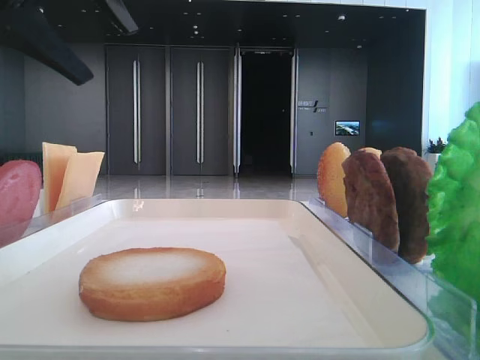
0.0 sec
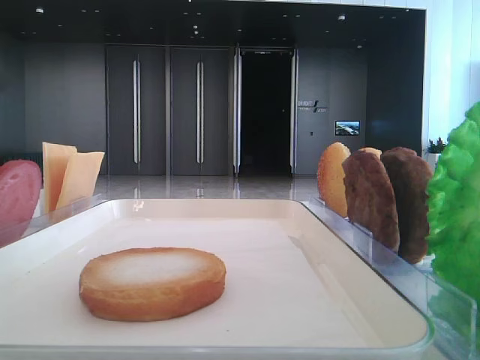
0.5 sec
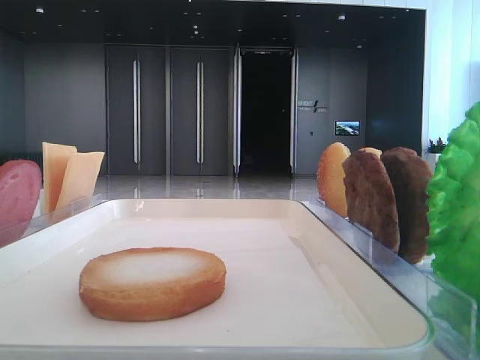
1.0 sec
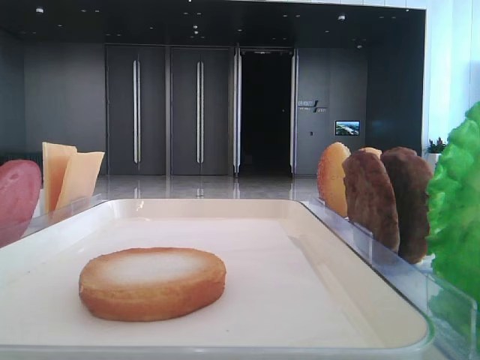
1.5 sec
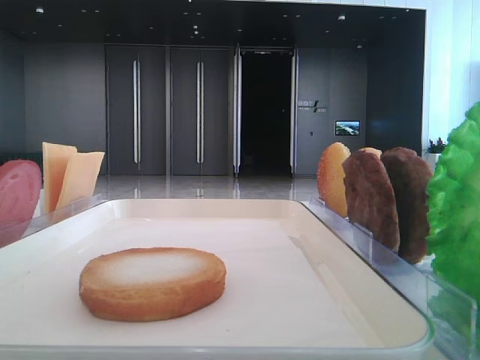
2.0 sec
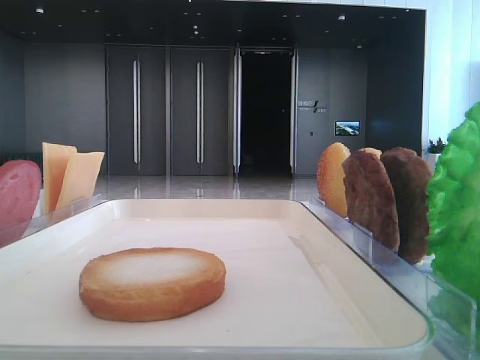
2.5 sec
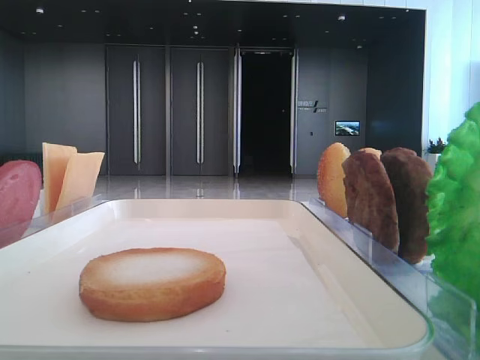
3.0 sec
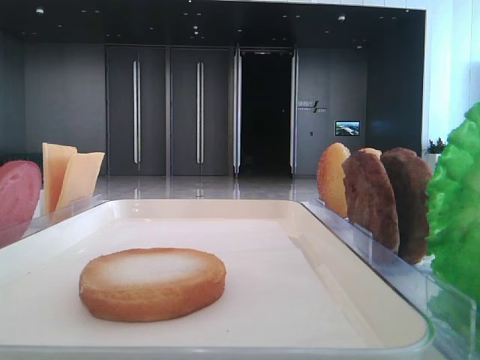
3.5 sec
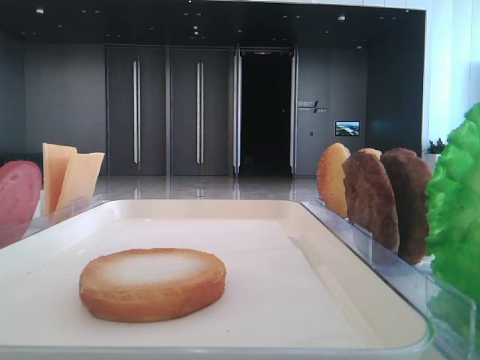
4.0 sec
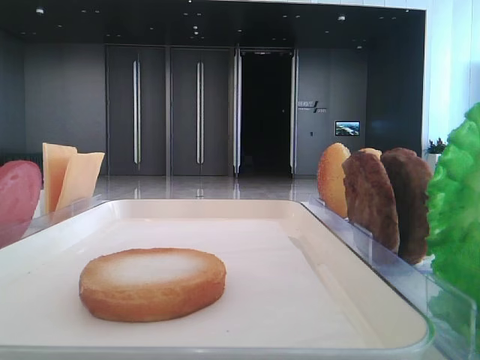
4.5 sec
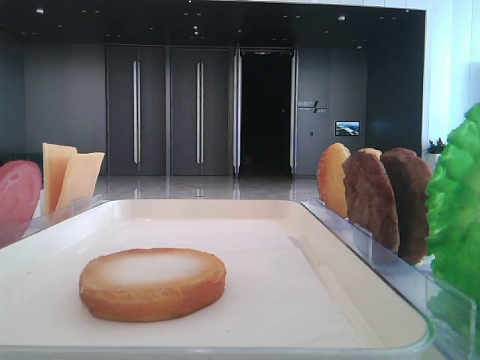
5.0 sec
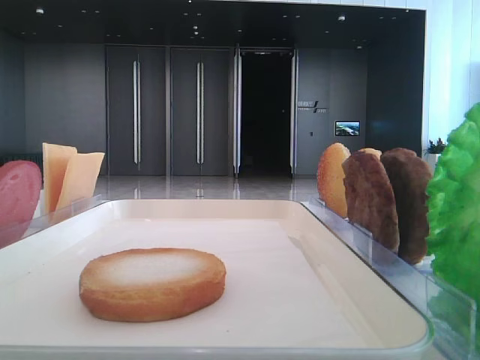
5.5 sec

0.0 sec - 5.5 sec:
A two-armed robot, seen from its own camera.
0.0 sec - 2.0 sec: The left gripper travels to the left by about 20 cm.

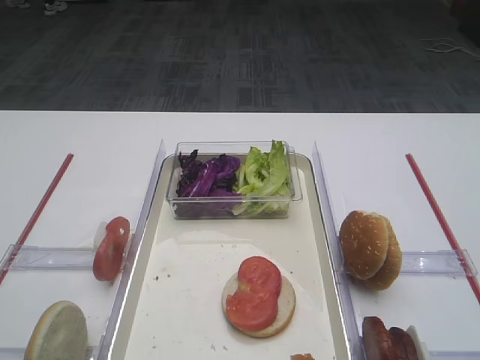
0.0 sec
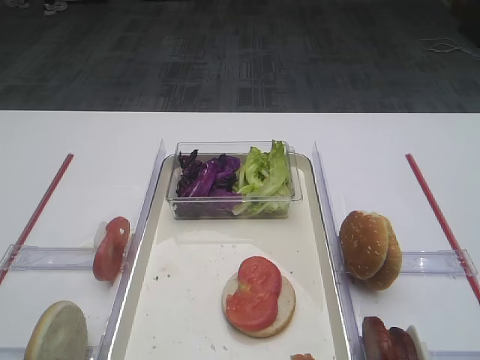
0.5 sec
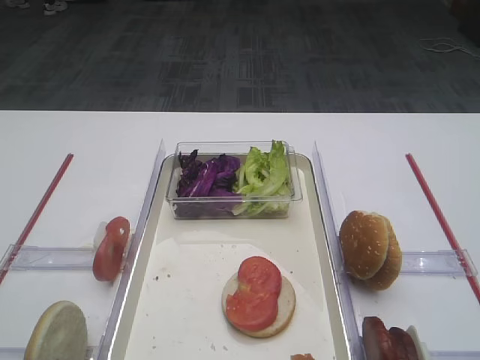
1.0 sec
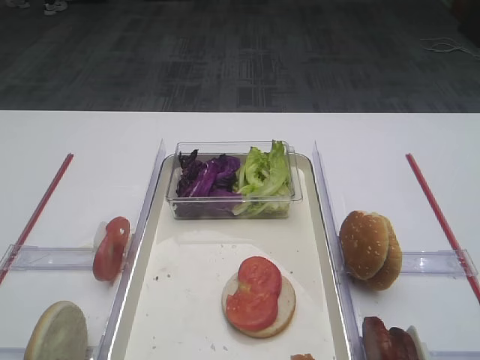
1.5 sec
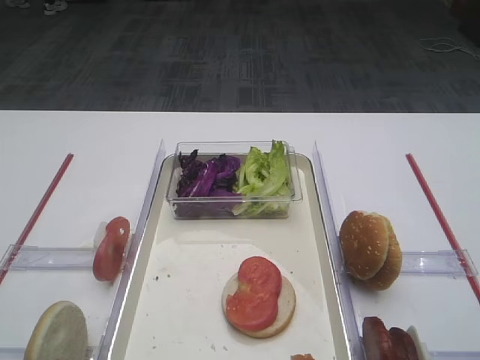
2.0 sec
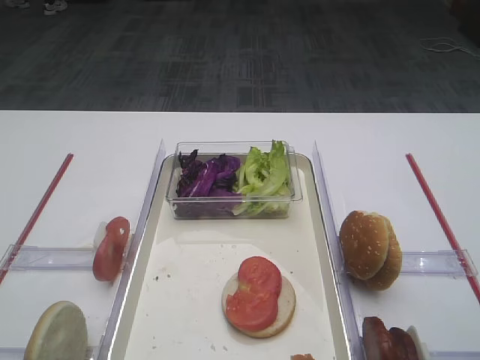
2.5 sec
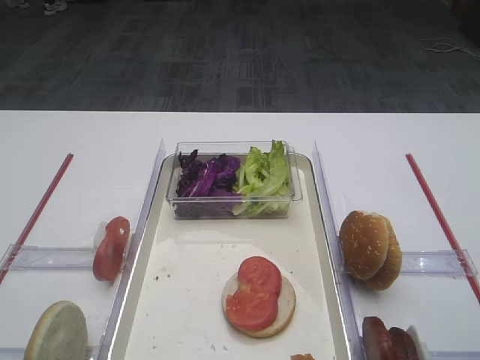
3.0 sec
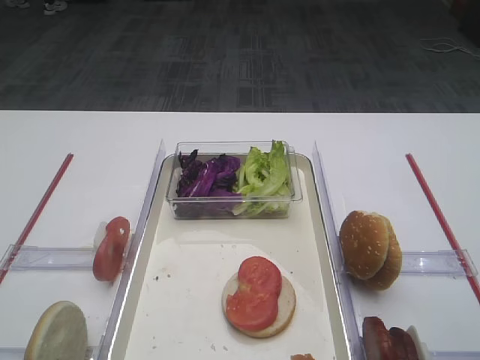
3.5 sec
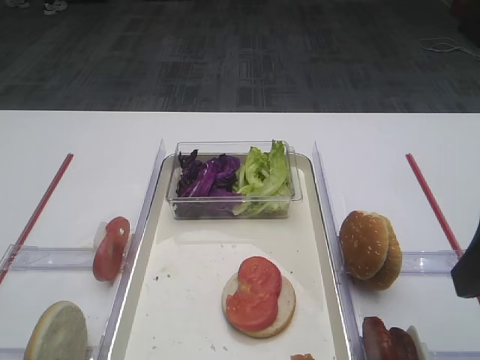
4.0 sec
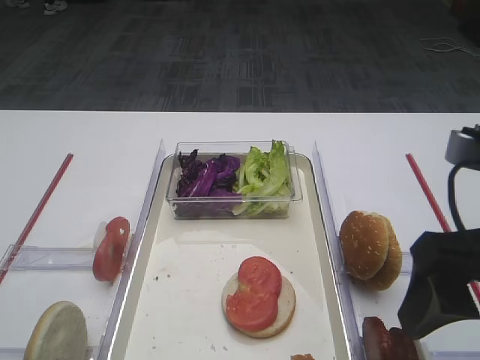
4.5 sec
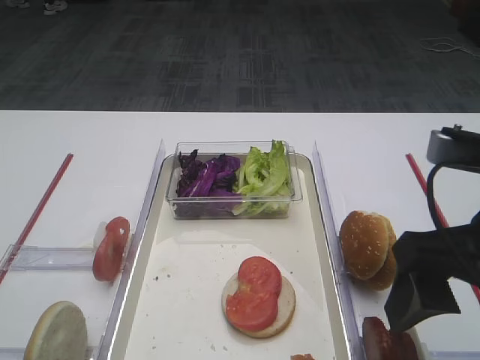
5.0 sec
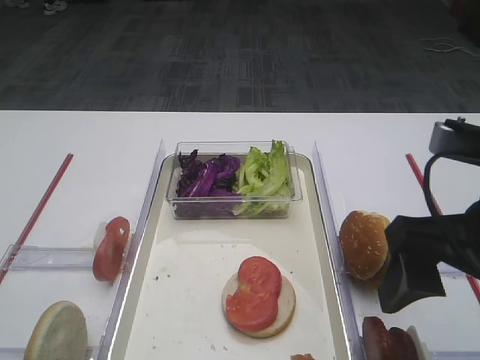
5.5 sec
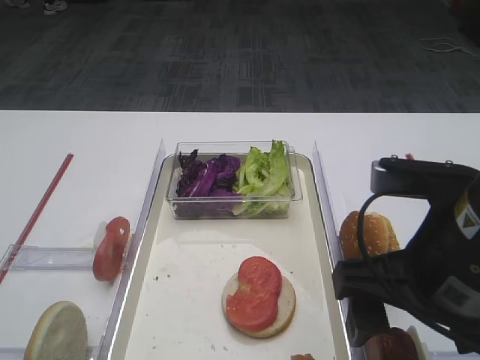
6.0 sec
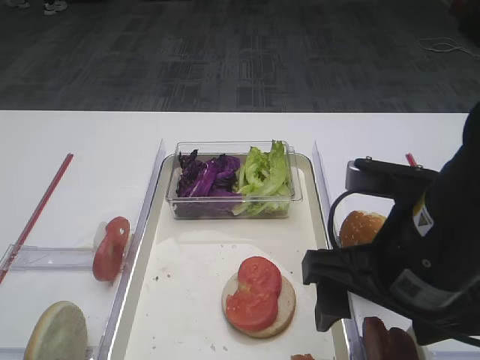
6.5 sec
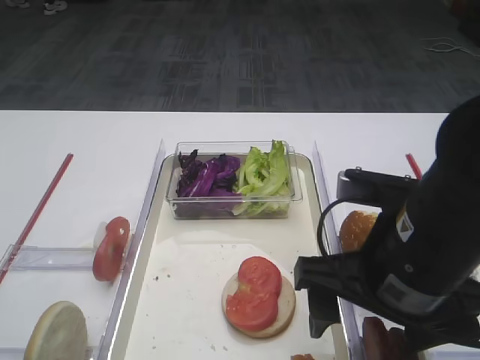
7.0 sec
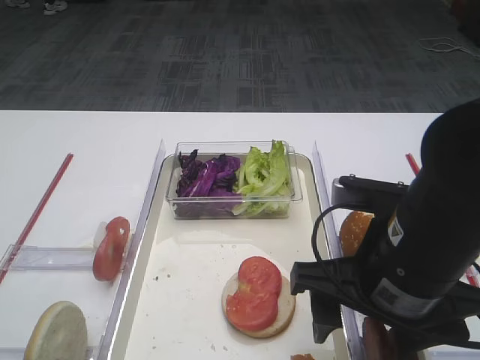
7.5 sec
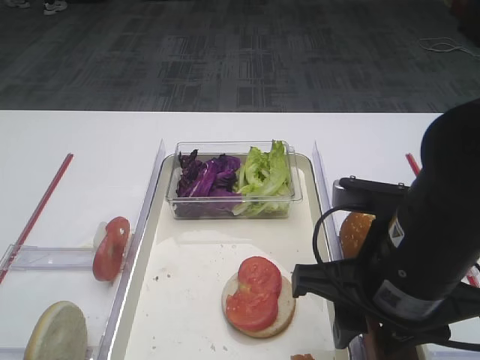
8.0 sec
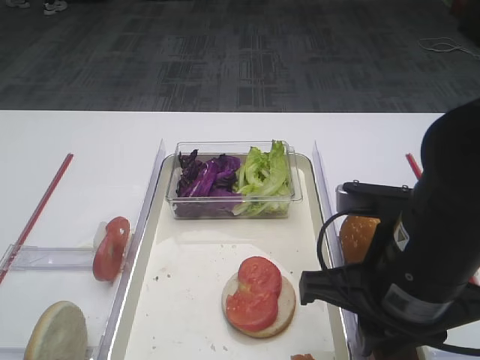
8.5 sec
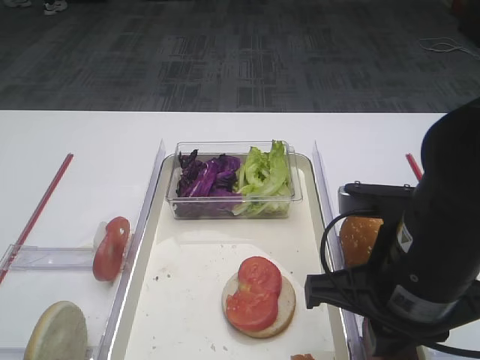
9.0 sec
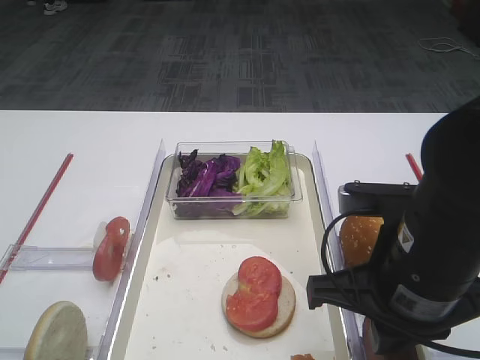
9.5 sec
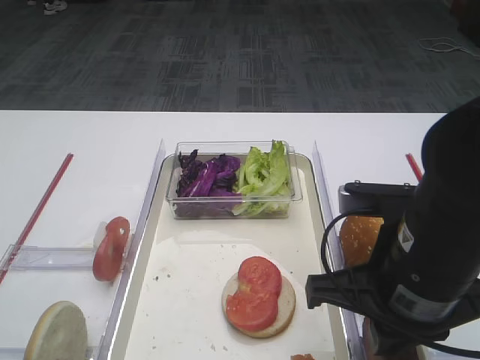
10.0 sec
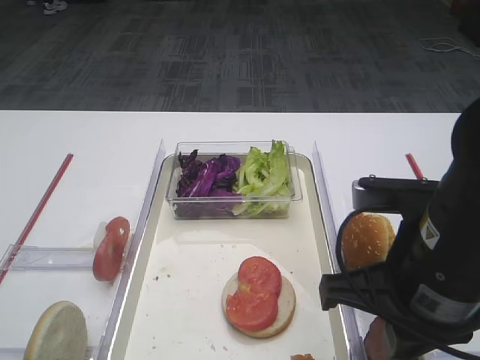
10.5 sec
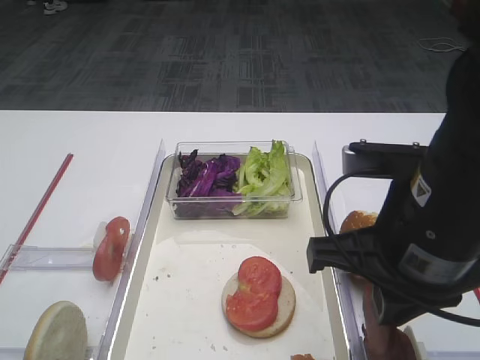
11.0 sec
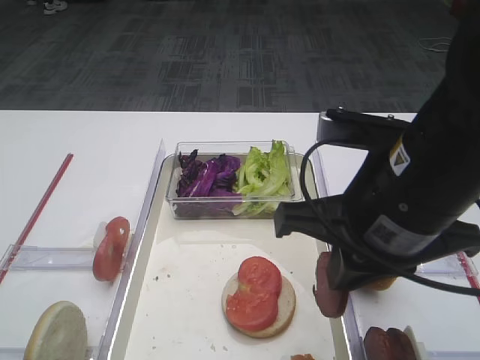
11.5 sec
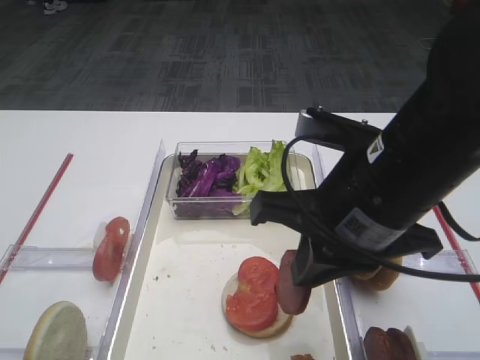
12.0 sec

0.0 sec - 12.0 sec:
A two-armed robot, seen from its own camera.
Step, 0.0 sec - 11.0 sec: Pick up the cutlet with the right gripper.
2.0 sec - 4.0 sec: The right gripper heads forward, covering about 5 cm.
4.0 sec - 6.0 sec: The right gripper moves to the left and downward, roughly 10 cm.
6.0 sec - 8.0 sec: The right gripper closes up.
8.0 sec - 10.0 sec: The right gripper closes its fingers.
10.0 sec - 12.0 sec: The right gripper shifts by some 5 cm.

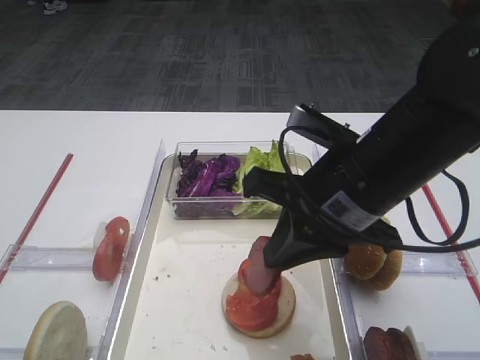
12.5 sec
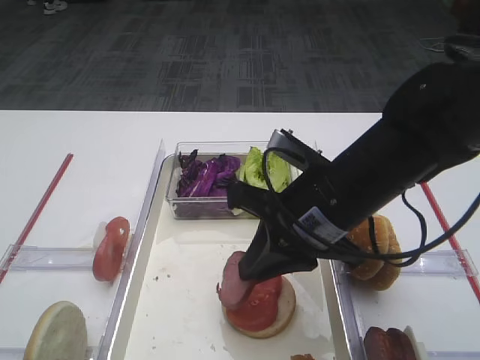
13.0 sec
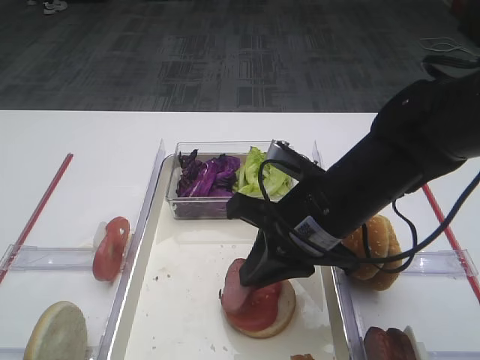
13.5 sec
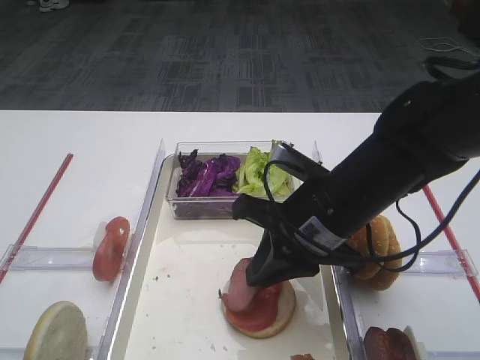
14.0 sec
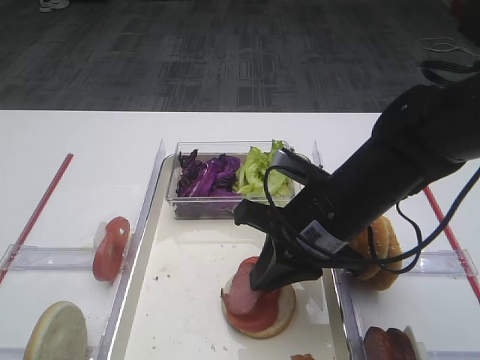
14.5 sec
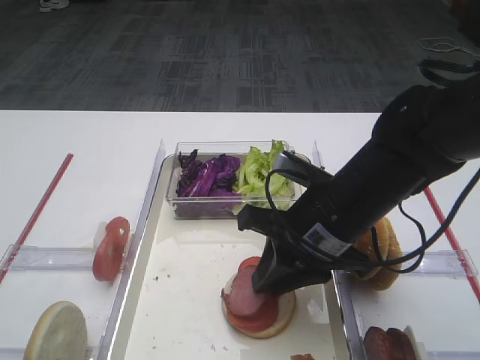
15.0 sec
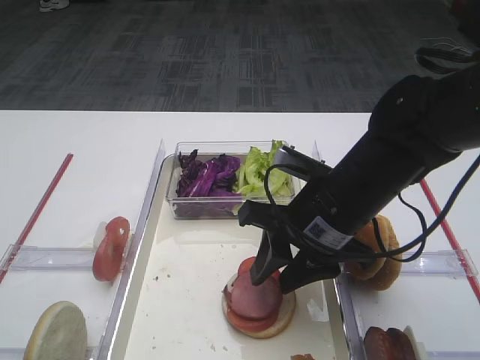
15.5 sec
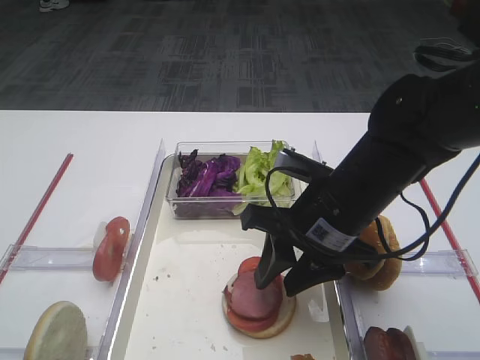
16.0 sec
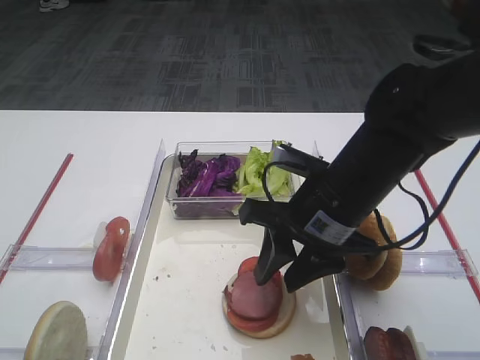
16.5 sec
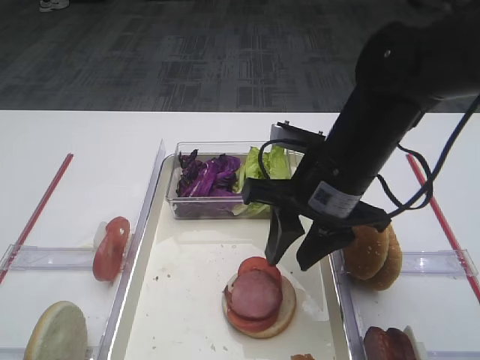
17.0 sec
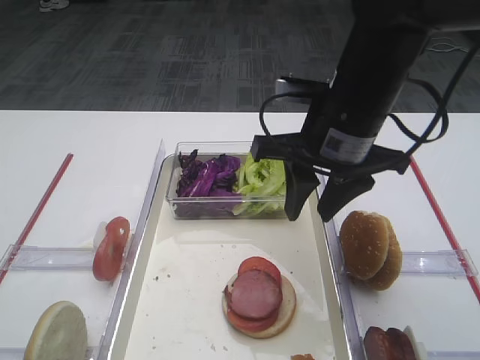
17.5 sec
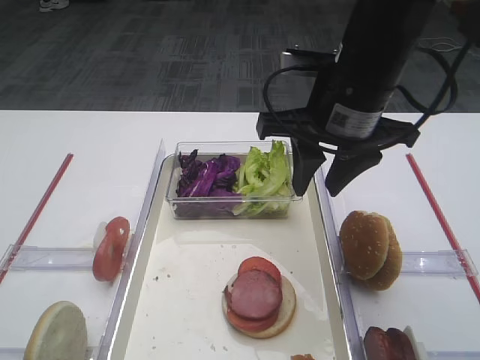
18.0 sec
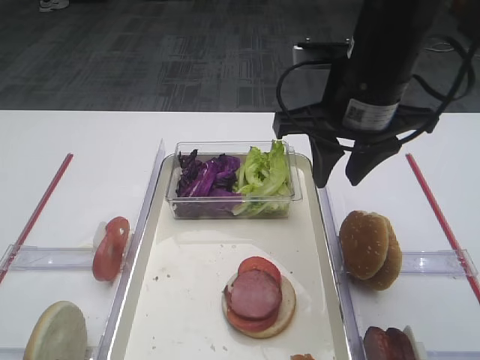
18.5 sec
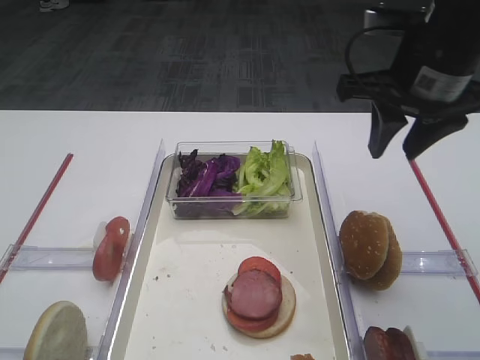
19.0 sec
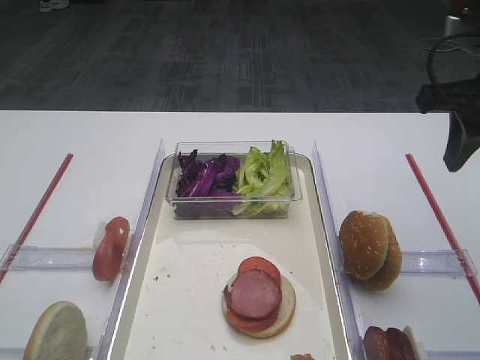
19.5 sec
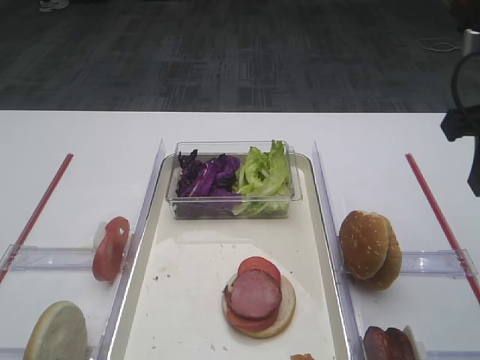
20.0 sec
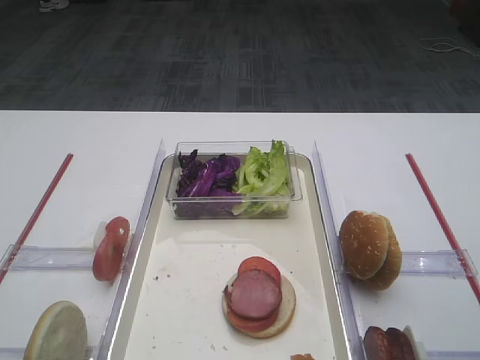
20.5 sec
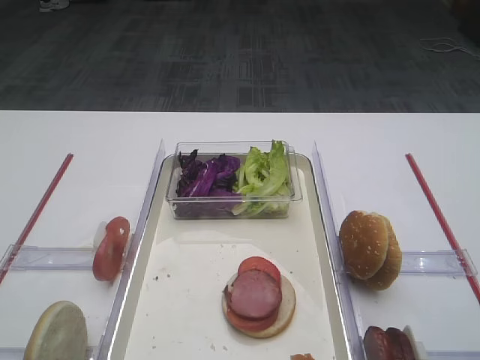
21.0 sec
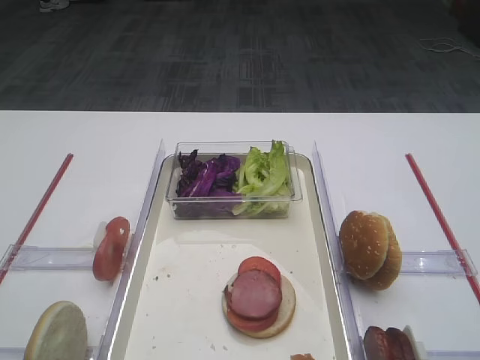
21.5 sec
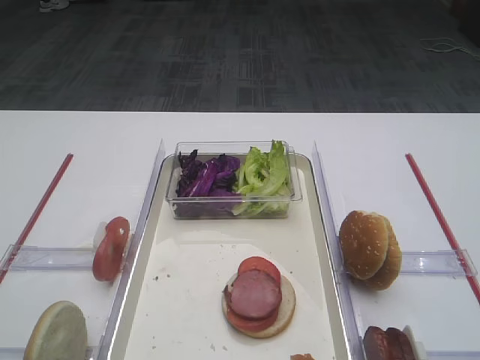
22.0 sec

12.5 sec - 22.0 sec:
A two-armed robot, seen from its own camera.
Step, 12.5 sec - 17.0 sec: Place the cutlet on the tomato slice with the right gripper.
12.5 sec - 14.5 sec: The right gripper travels downward by about 5 cm.
14.5 sec - 16.5 sec: The right gripper opens.
16.5 sec - 18.0 sec: The right gripper shifts some 10 cm upward.
18.0 sec - 20.0 sec: The right gripper heads to the right and backward, covering about 15 cm.
20.0 sec - 22.0 sec: The right gripper shifts some 25 cm backward.
